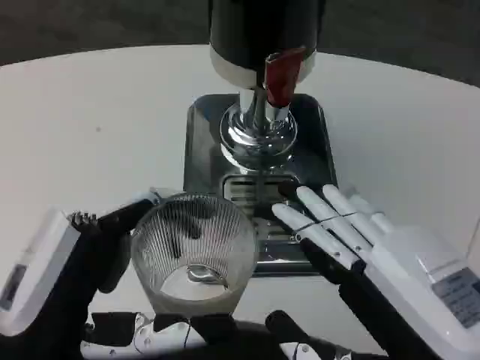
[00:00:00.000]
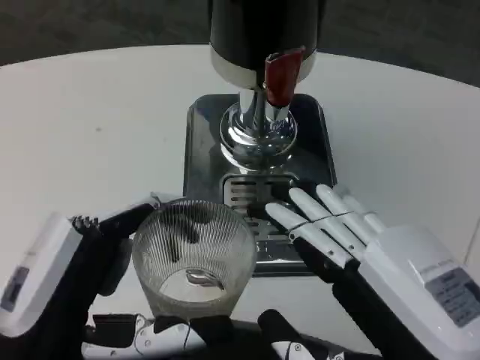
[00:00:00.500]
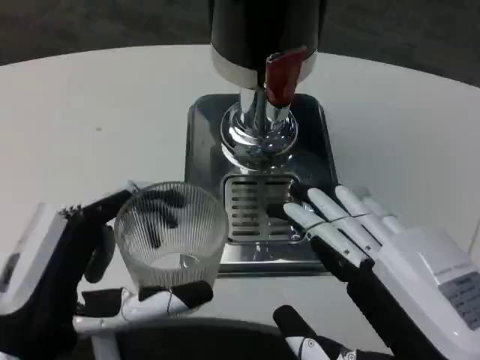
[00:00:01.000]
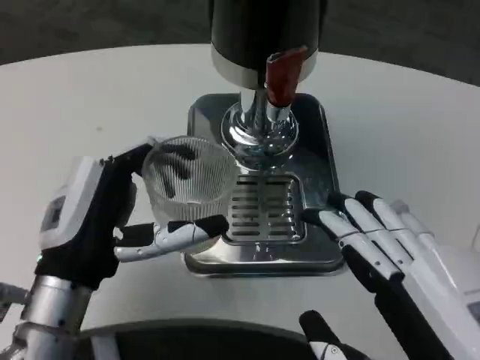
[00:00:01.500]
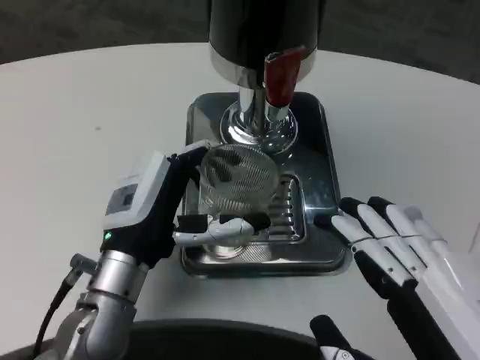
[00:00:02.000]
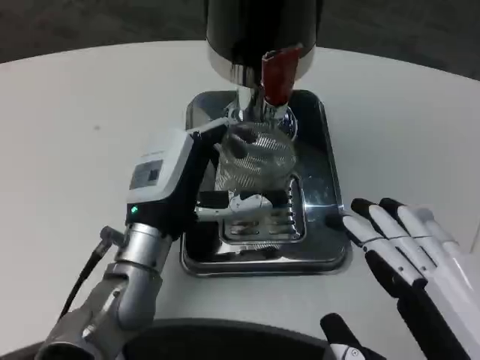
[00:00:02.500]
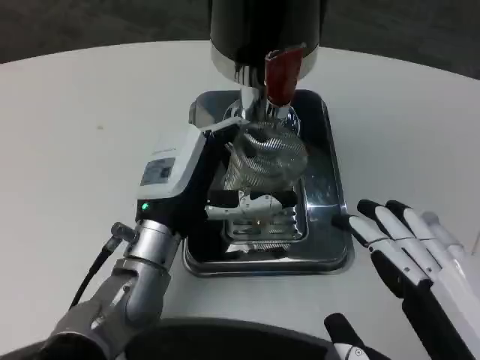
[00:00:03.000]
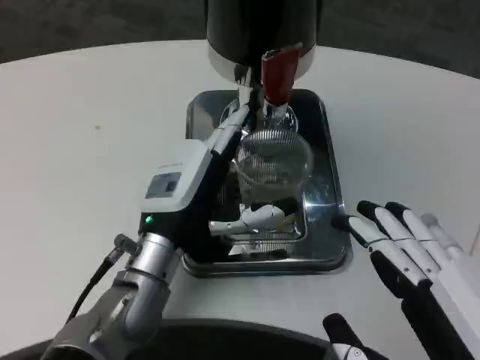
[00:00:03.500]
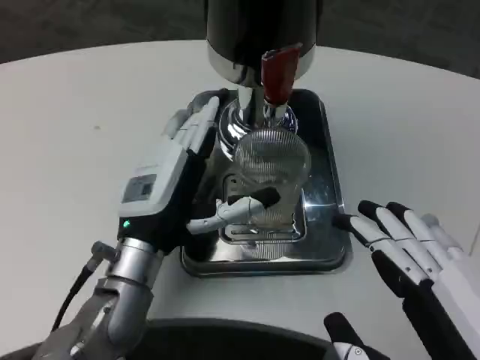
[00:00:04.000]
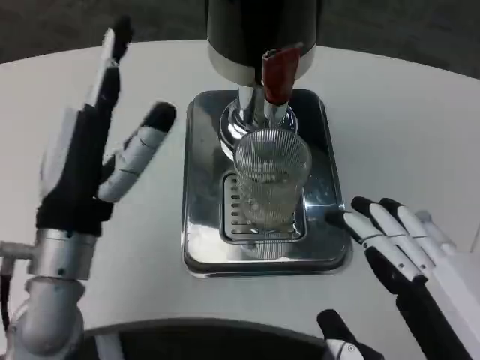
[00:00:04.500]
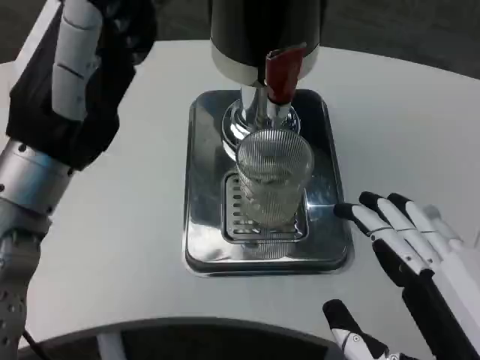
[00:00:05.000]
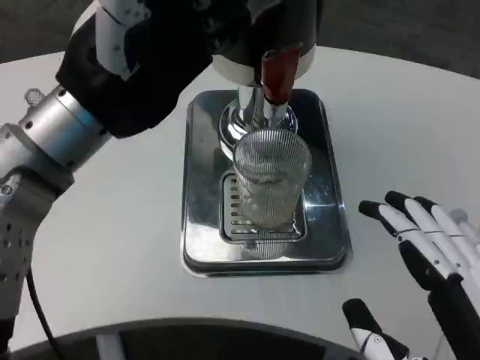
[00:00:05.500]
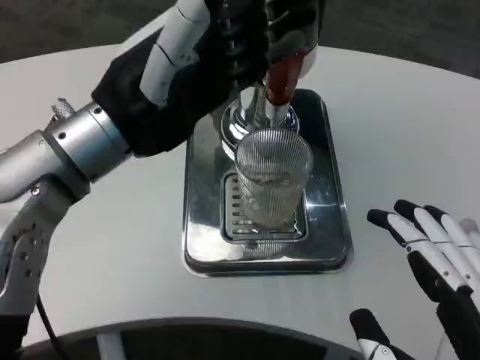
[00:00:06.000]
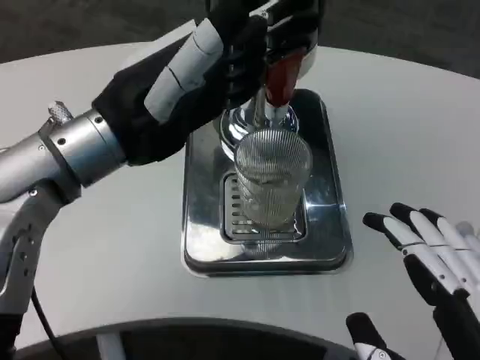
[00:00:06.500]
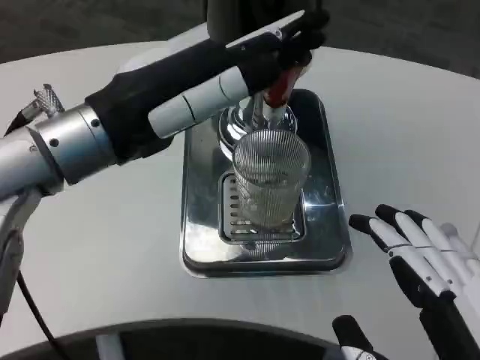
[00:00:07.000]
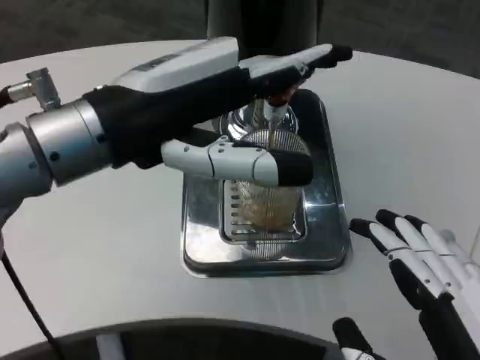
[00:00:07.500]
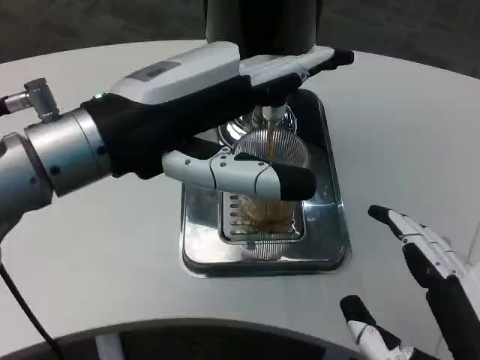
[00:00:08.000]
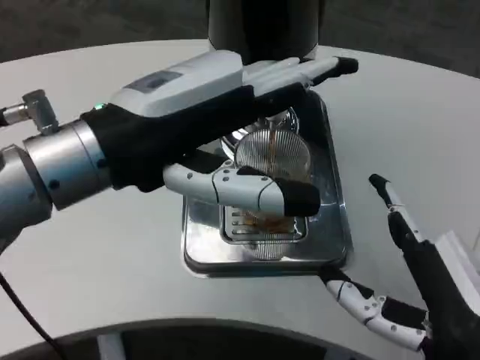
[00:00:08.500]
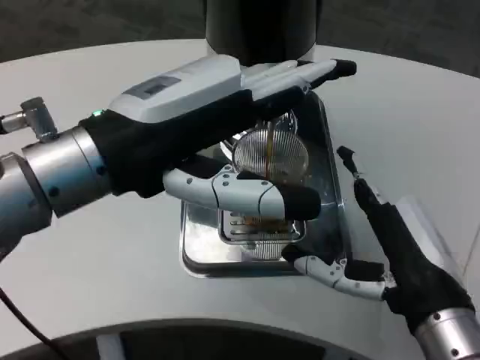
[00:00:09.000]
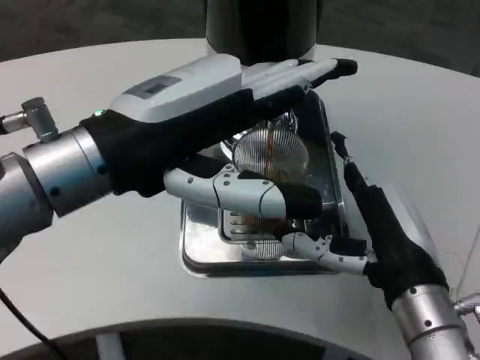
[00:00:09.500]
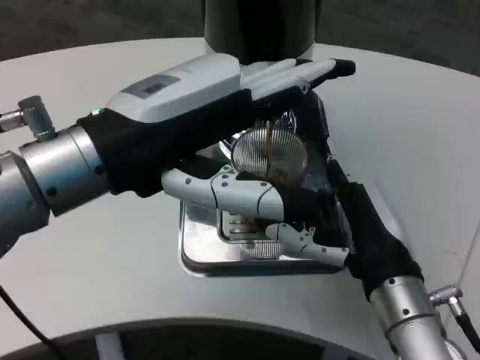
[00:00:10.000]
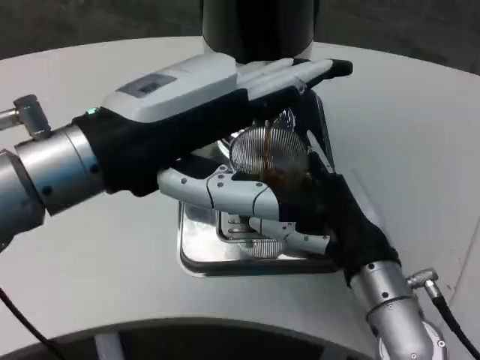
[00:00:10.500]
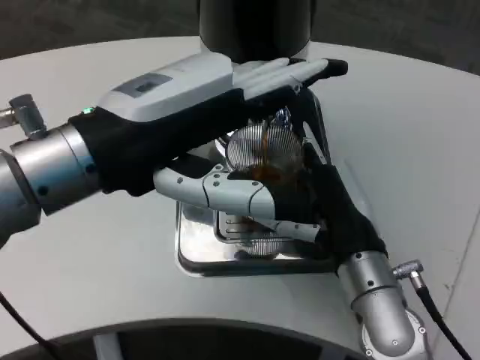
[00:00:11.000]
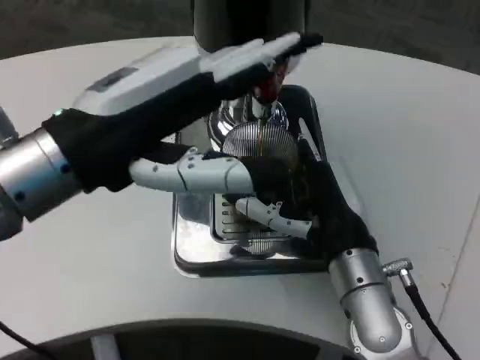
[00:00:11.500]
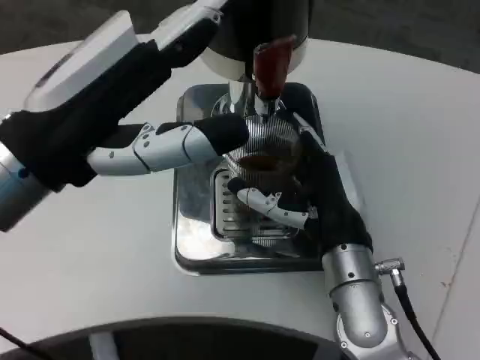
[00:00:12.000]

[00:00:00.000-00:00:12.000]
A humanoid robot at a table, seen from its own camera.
Task of the whole recording: Grasp the cup under the faucet to collect the drink, then remove the cup.
00:00:00.000 to 00:00:02.000: The left hand heads forward, covering about 15 cm.
00:00:04.000 to 00:00:06.000: The left hand shifts about 15 cm upward.
00:00:08.000 to 00:00:10.000: The right hand shifts roughly 15 cm forward.
00:00:10.000 to 00:00:12.000: The right hand shifts by approximately 5 cm.

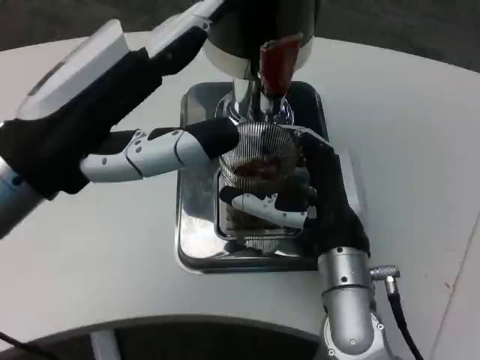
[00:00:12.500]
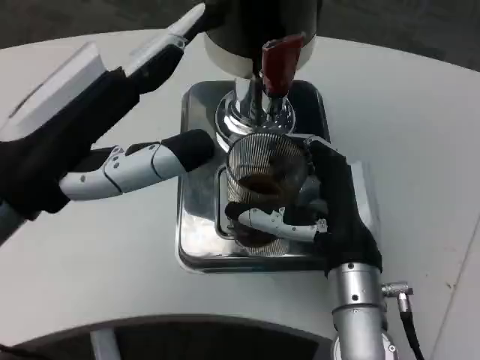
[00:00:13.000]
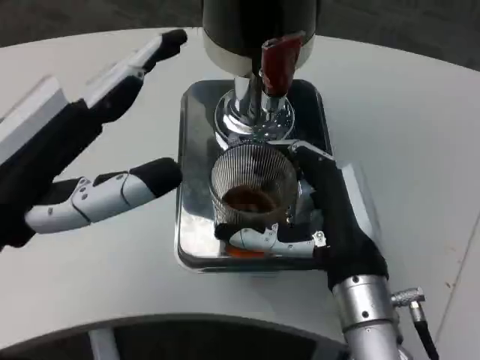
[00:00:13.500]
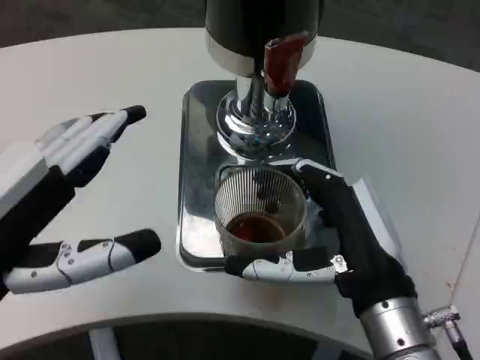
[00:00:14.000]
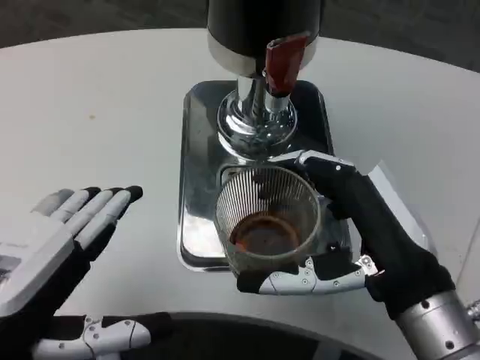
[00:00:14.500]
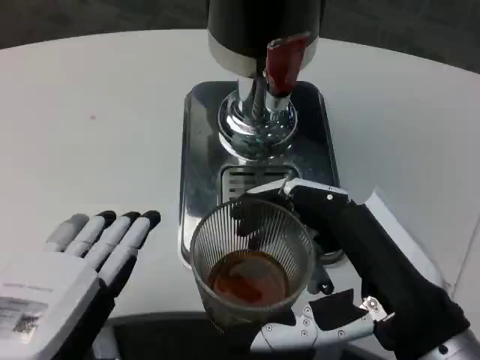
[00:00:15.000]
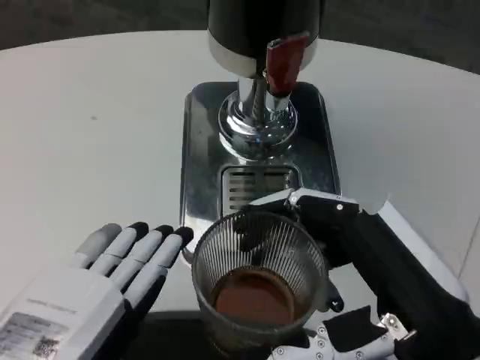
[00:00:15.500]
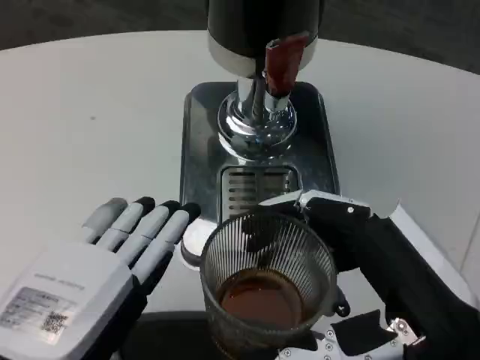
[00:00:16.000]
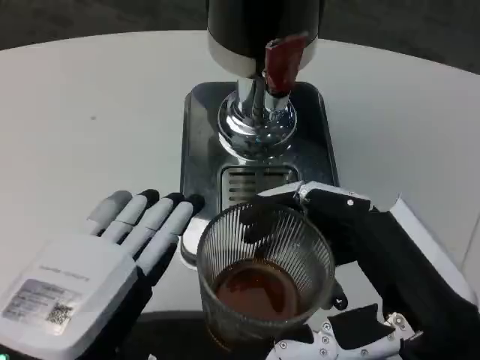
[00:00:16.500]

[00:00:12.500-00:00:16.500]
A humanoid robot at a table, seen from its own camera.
Task of the whole recording: Grasp the cup under the faucet to collect the drink, then remove the cup.
00:00:12.500 to 00:00:14.500: The left hand goes some 10 cm backward and downward. The right hand travels backward and to the right by roughly 10 cm.
00:00:14.500 to 00:00:16.500: The right hand heads backward, covering roughly 5 cm.

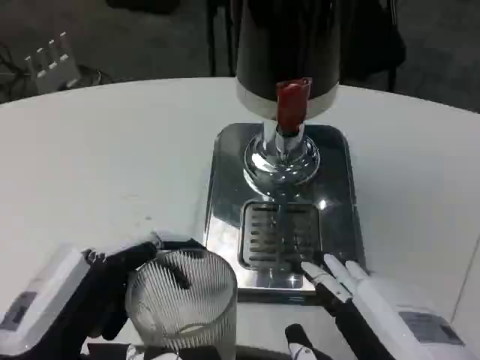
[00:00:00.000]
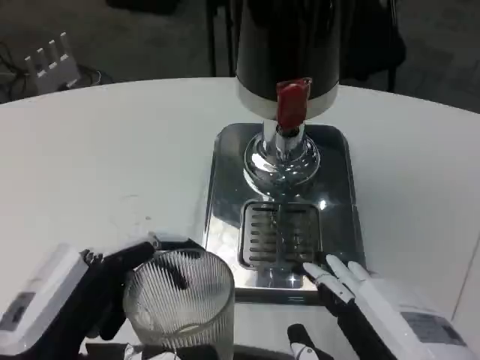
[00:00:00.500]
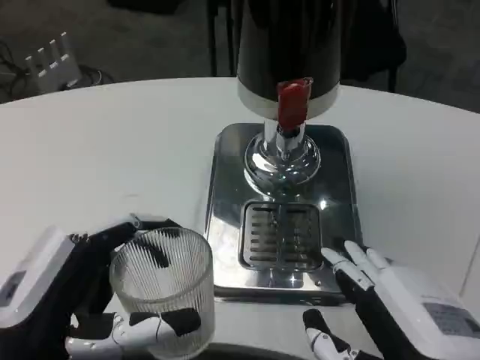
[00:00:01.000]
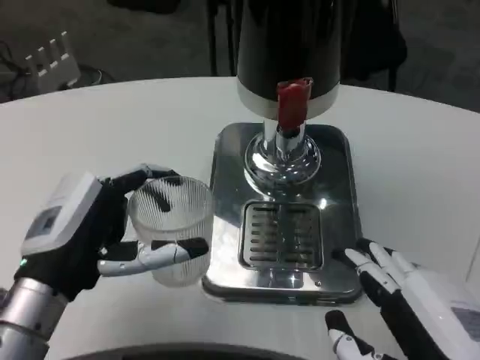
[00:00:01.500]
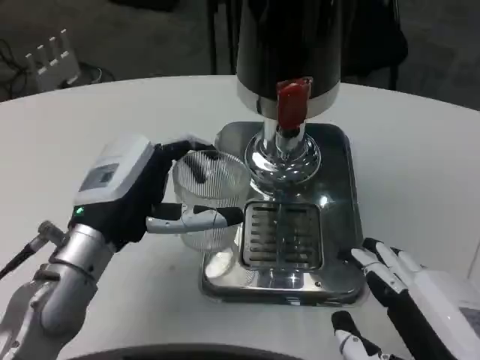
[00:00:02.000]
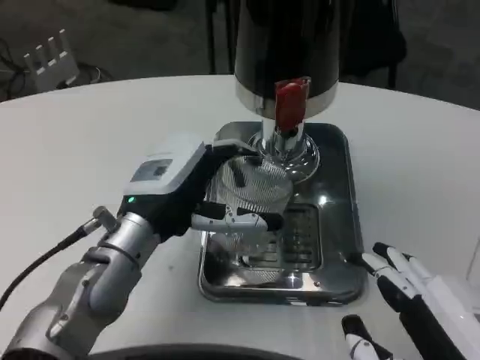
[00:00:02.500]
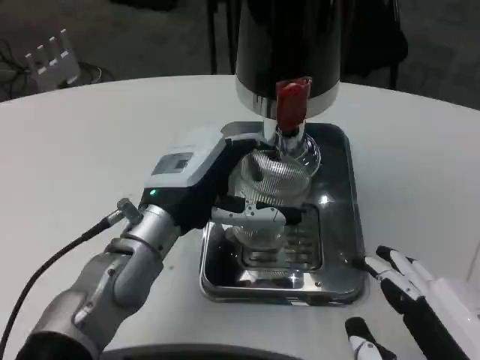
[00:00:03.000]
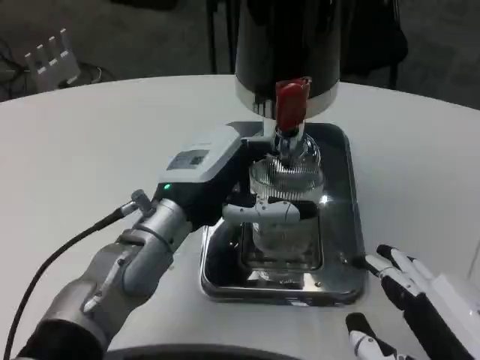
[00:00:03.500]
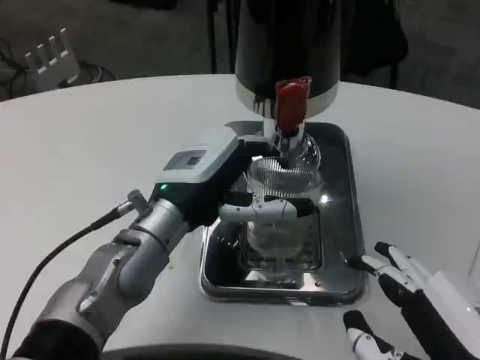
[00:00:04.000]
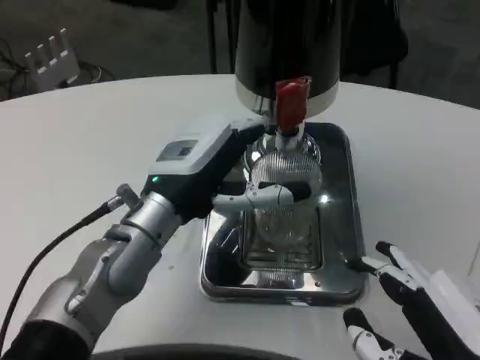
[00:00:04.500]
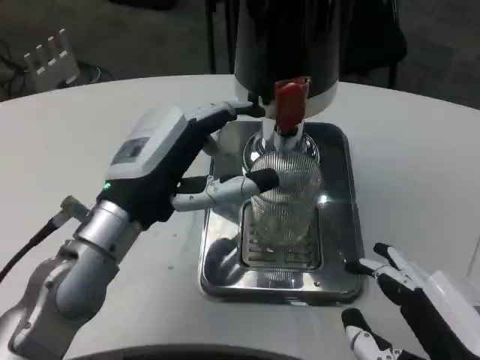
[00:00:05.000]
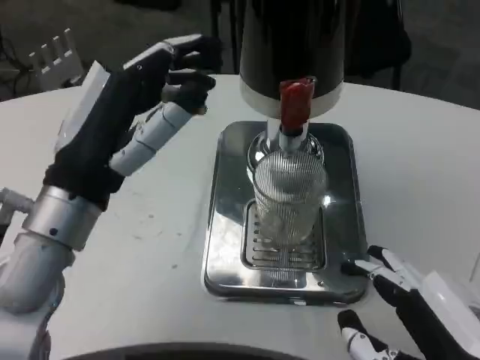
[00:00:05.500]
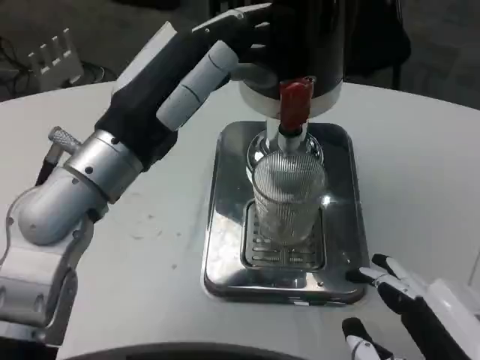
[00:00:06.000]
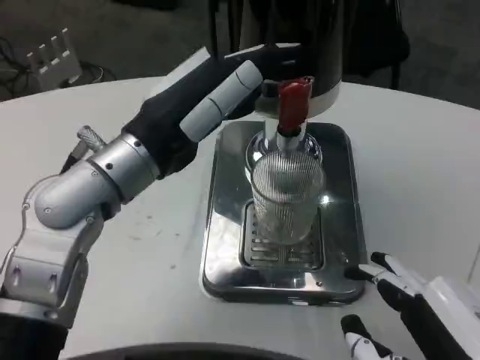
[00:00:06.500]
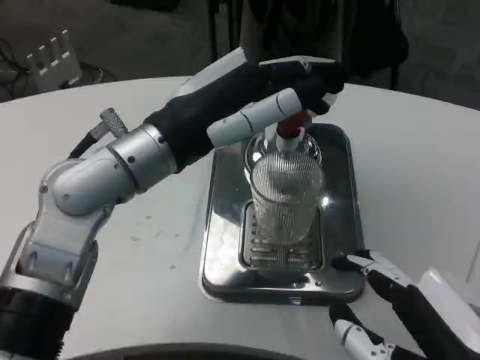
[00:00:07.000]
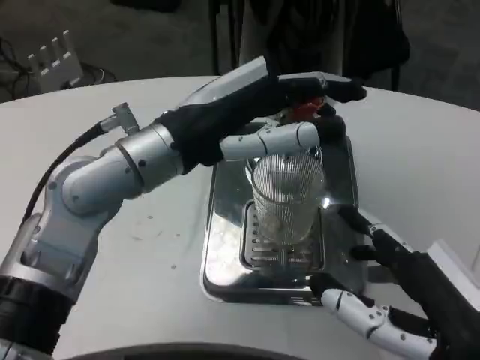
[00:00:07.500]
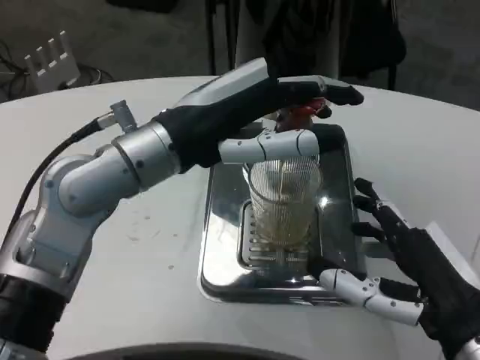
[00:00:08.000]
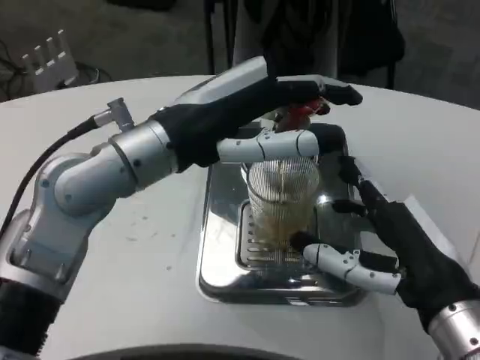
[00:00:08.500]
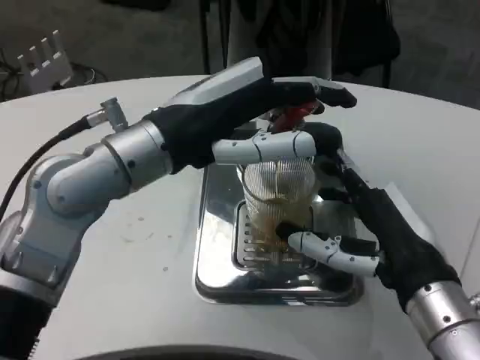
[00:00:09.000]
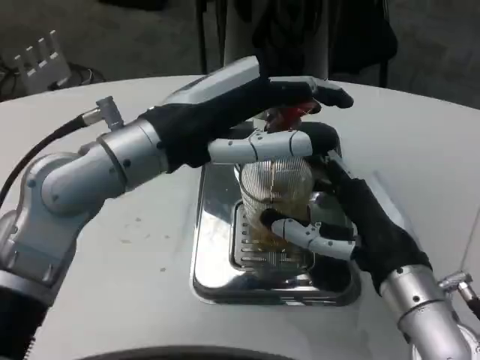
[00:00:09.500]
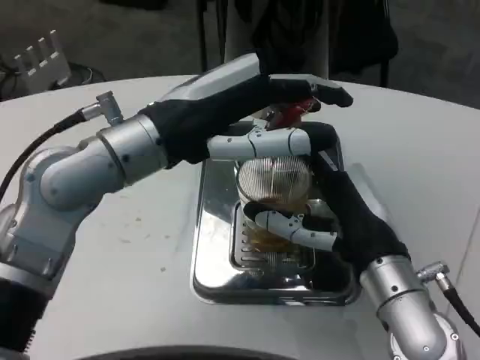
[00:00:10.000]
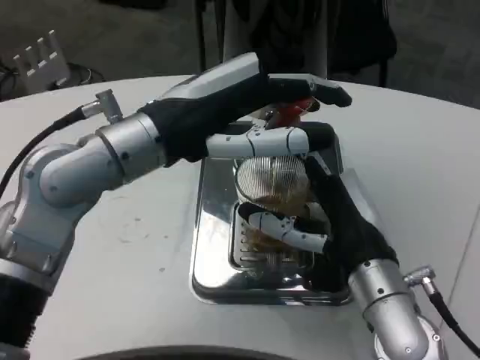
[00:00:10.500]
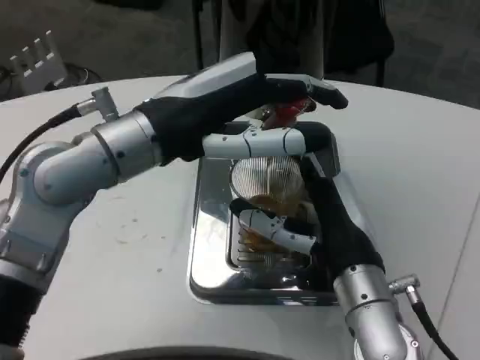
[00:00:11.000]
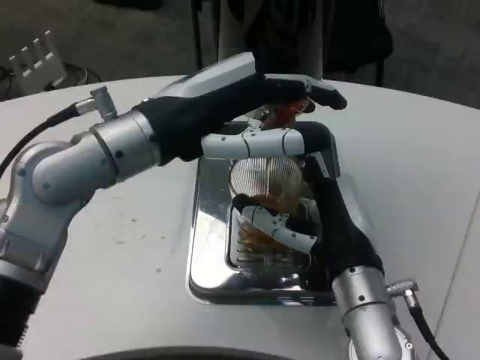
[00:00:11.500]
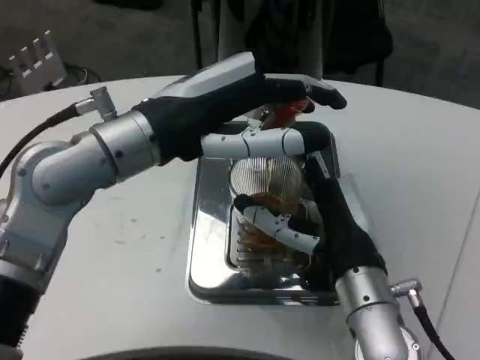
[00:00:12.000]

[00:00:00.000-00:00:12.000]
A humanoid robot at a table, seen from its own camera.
Task of the whole recording: Grasp the cup under the faucet to collect the drink, then remove the cup.
00:00:00.000 to 00:00:02.000: The left hand is displaced forward by approximately 15 cm.
00:00:02.000 to 00:00:04.000: The left hand shifts approximately 5 cm to the right.
00:00:04.000 to 00:00:06.000: The left hand heads upward, covering roughly 10 cm.
00:00:06.000 to 00:00:08.000: The right hand travels forward by approximately 5 cm.
00:00:08.000 to 00:00:10.000: The right hand goes about 10 cm forward.
